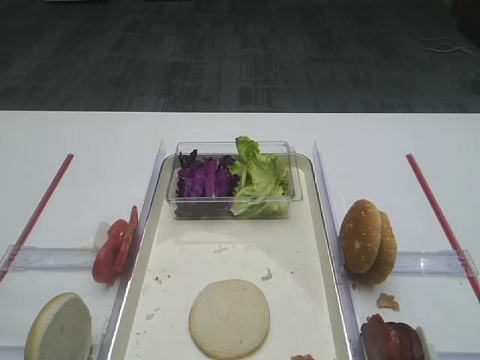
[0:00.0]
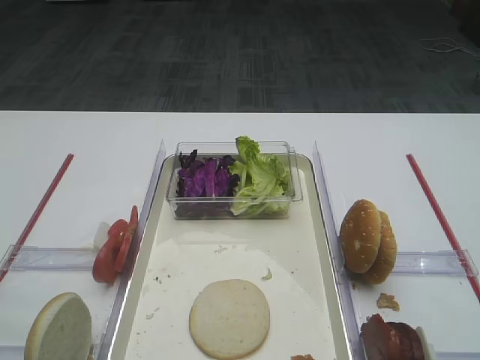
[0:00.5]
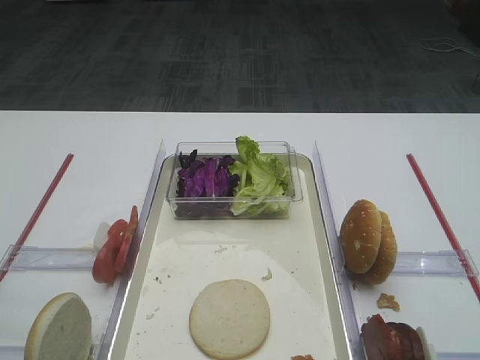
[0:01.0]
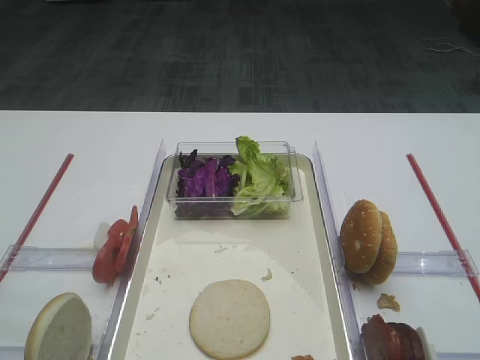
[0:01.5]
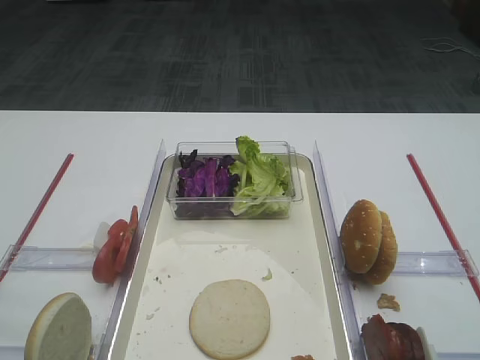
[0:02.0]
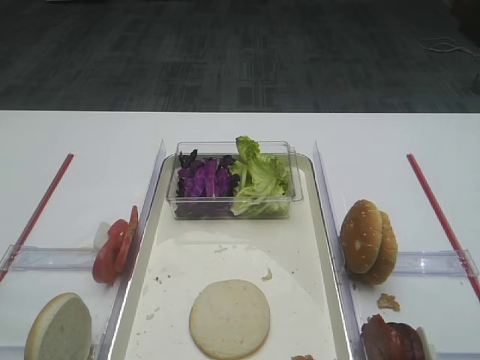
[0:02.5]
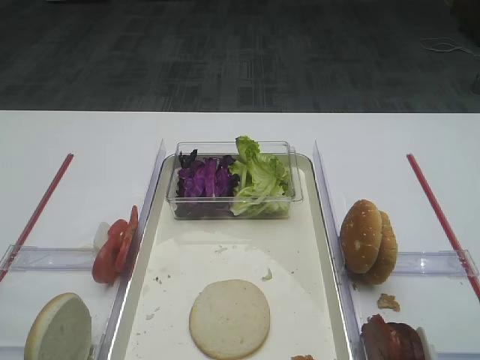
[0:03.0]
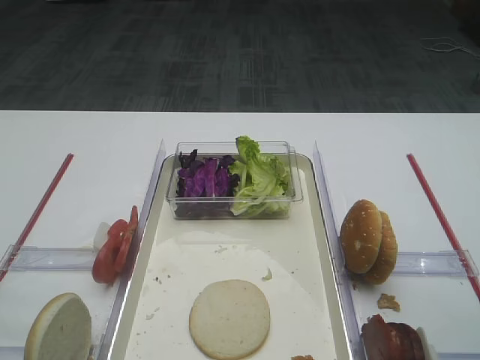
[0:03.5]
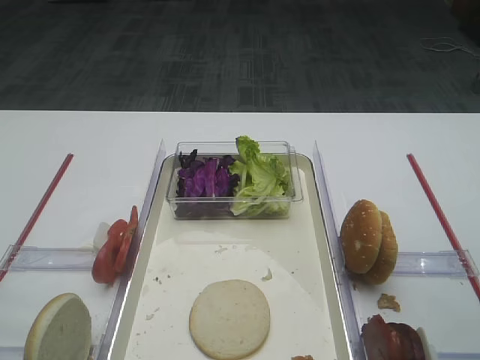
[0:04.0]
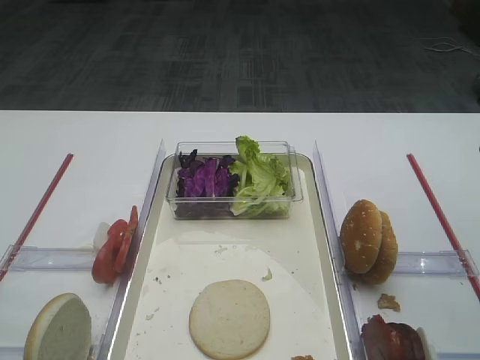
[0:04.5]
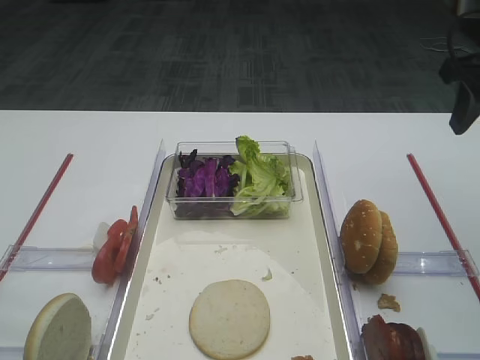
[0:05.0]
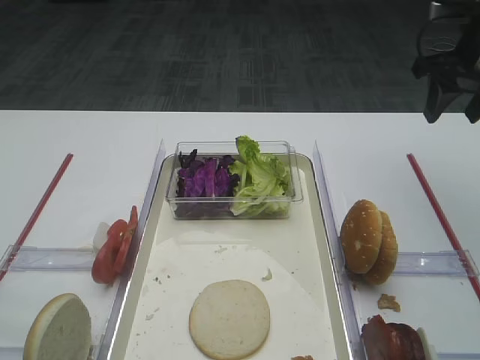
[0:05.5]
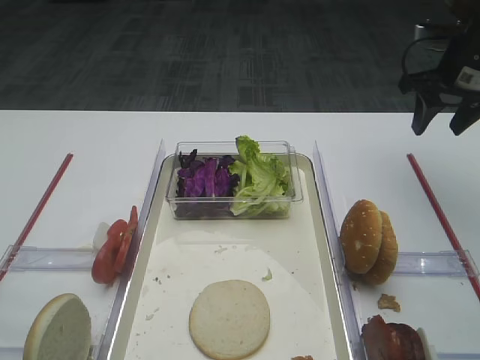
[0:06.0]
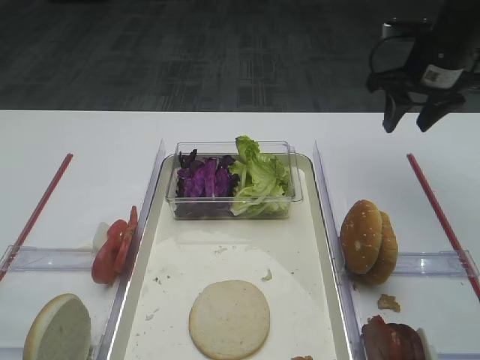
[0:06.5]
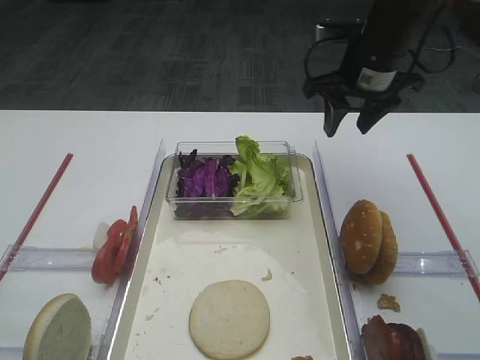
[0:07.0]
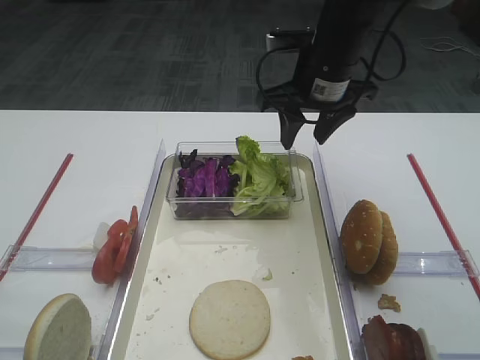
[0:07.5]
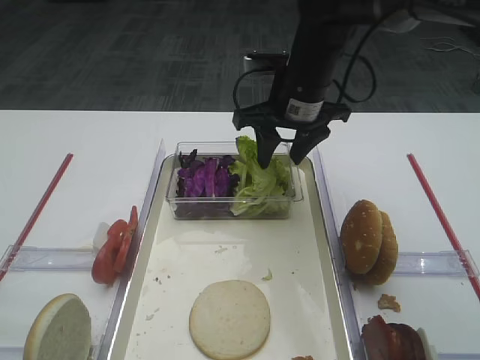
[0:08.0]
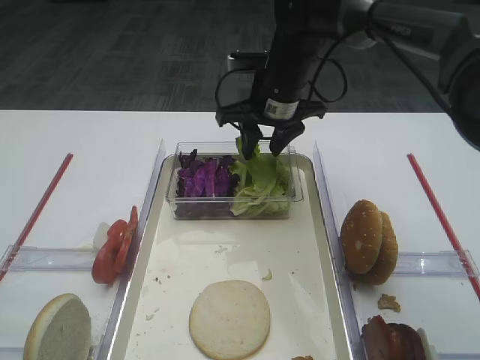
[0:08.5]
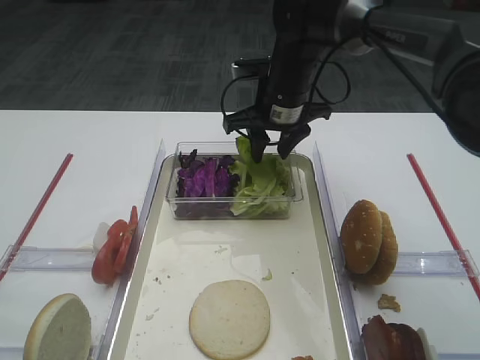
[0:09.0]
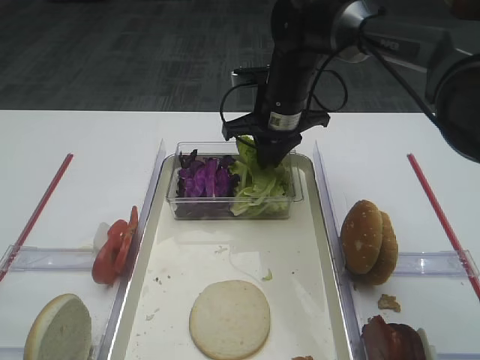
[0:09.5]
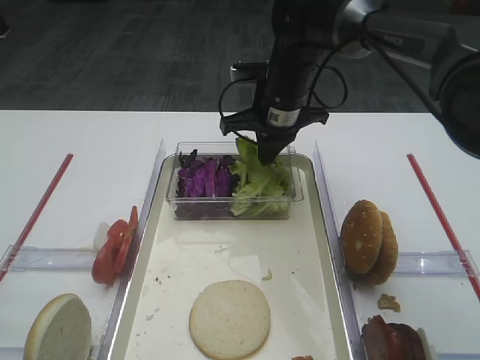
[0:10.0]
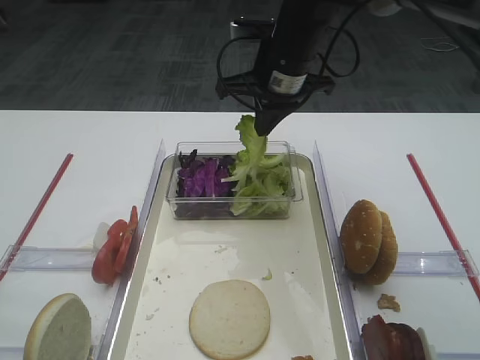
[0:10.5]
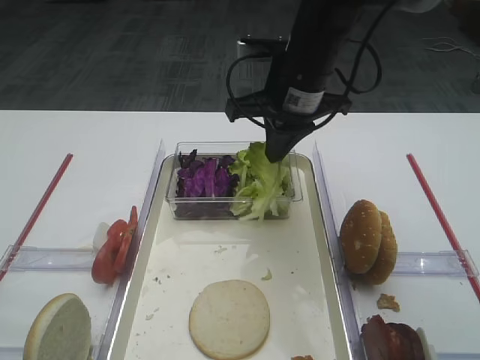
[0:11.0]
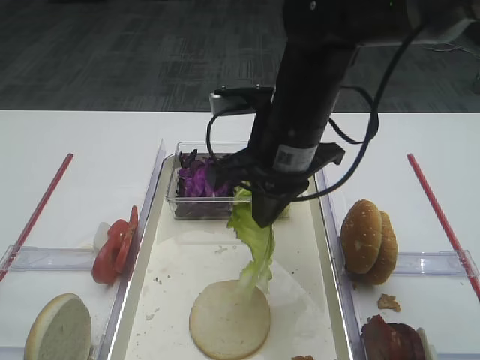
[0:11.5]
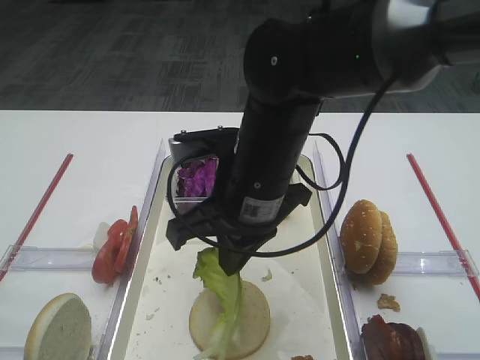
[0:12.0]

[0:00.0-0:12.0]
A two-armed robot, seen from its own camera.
Step, 0:00.0 to 0:10.0: Pick up the lettuce leaf with the right gripper.
0:04.0 to 0:06.0: The right gripper travels forward by some 25 cm.
0:06.0 to 0:08.0: The right gripper shifts approximately 20 cm to the left.
0:08.0 to 0:10.0: The right gripper ends up about 5 cm from where it was, and closes its fingers.
0:10.0 to 0:12.0: The right gripper moves backward, about 20 cm.

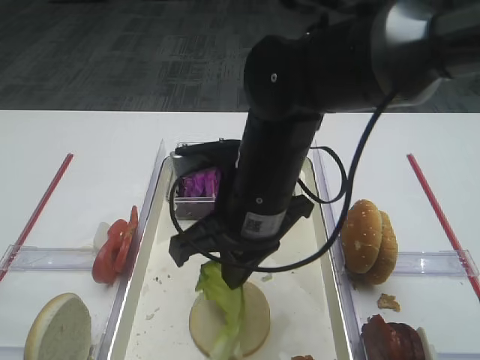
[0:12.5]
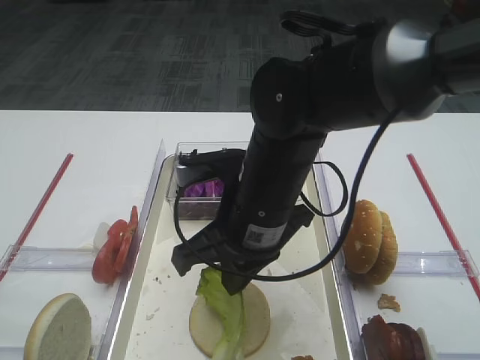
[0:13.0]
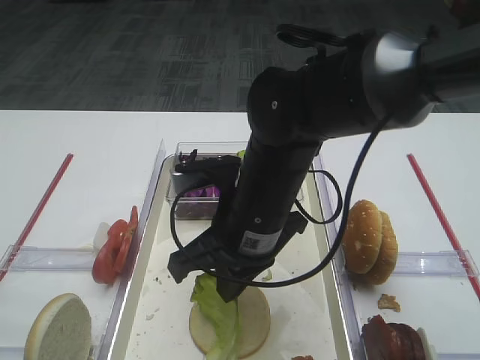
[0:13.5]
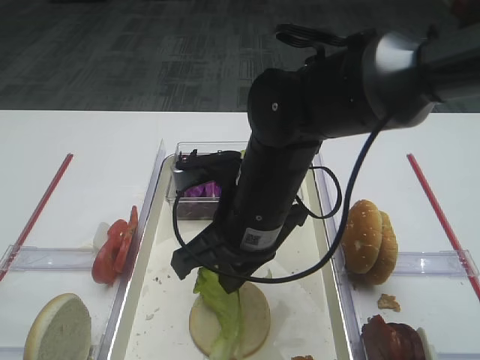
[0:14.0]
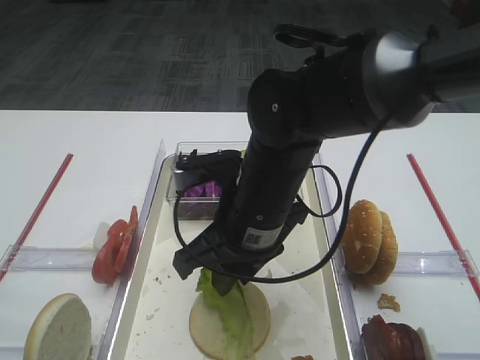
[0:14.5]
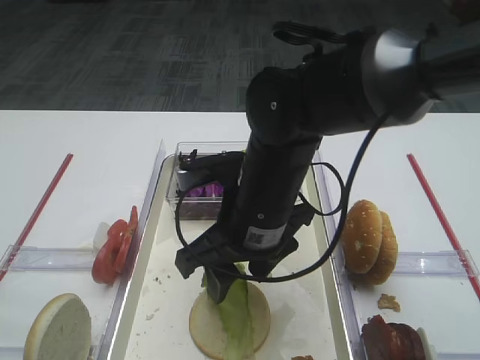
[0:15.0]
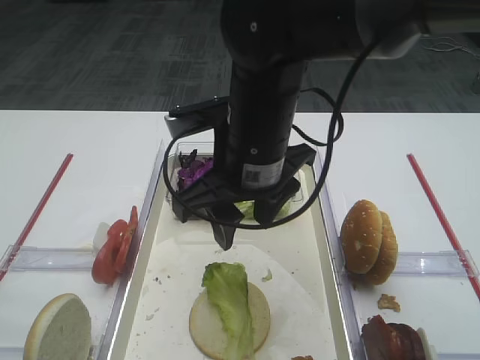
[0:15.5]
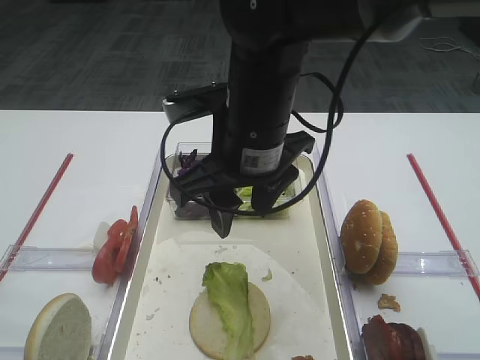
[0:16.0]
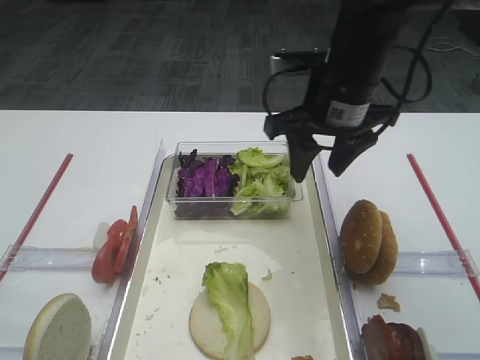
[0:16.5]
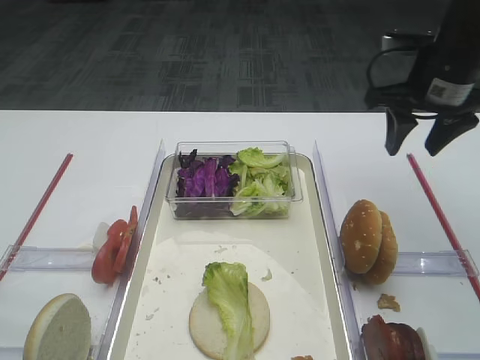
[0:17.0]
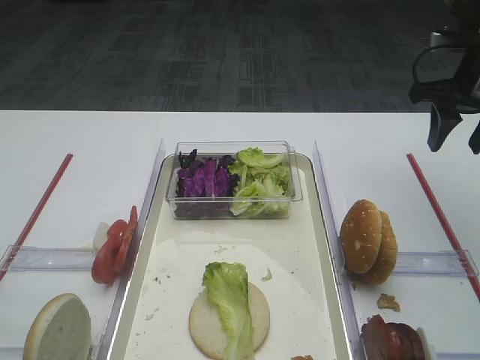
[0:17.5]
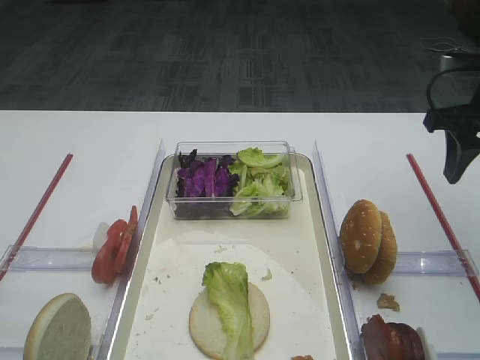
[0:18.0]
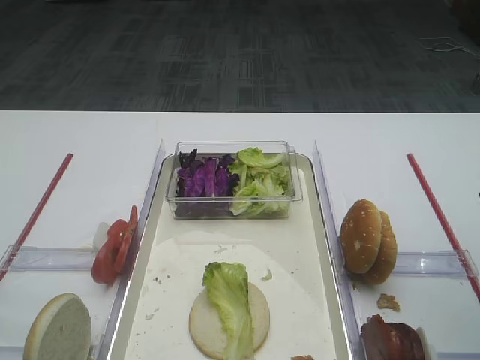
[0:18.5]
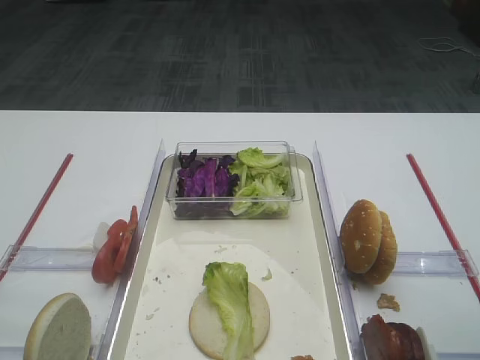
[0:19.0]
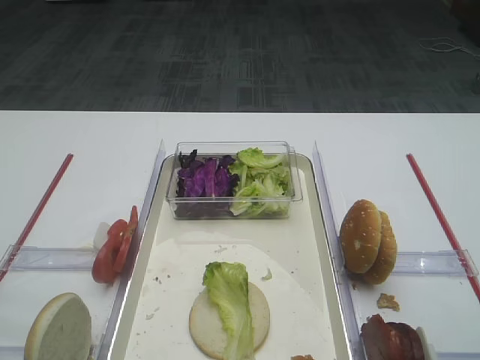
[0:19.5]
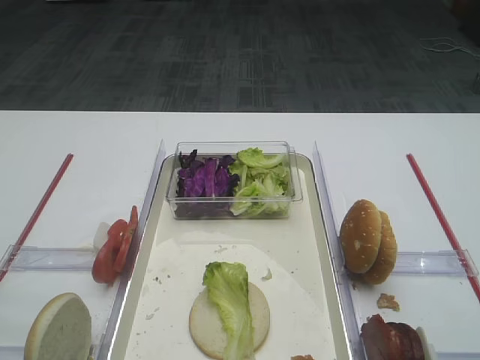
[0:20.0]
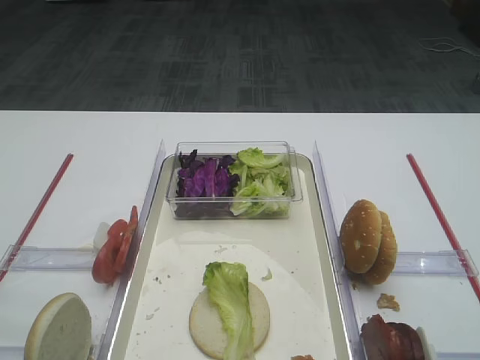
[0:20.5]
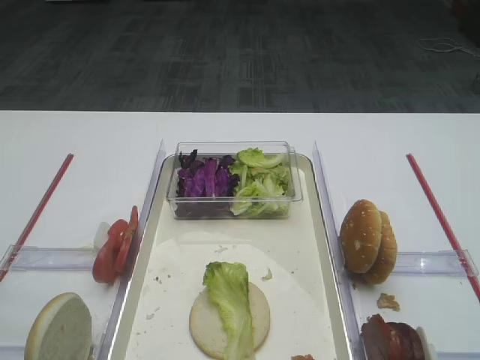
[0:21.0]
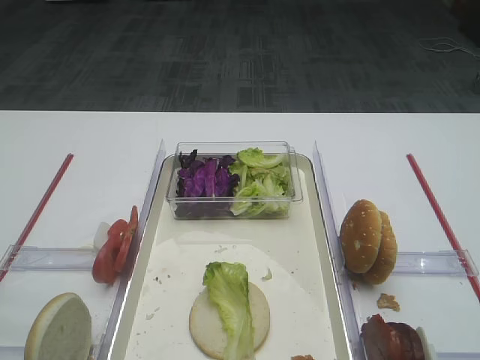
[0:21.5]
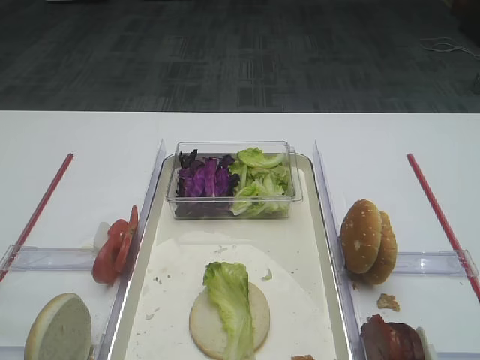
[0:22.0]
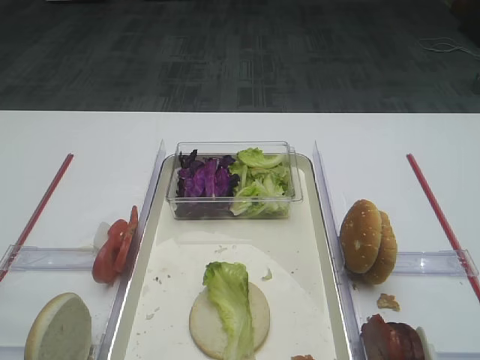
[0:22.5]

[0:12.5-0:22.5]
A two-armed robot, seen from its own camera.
Step, 0:12.5 to 0:15.0: Place the lettuce leaf on the bread slice with the right gripper.
0:12.5 to 0:14.5: The right gripper opens its fingers.
0:14.5 to 0:16.5: The right gripper travels forward, to the right and upward by about 15 cm, and opens up.
0:16.5 to 0:18.5: The right gripper shifts some 20 cm to the right and backward.
0:18.5 to 0:20.5: The right gripper shifts roughly 20 cm backward.

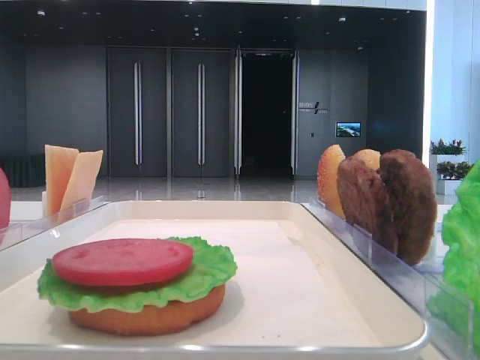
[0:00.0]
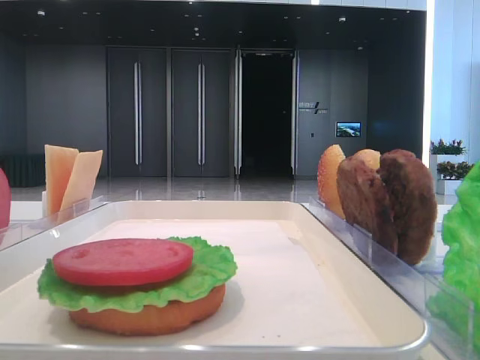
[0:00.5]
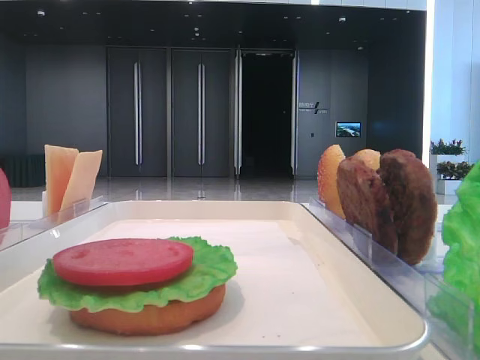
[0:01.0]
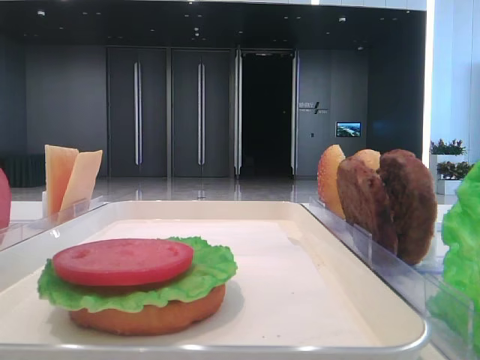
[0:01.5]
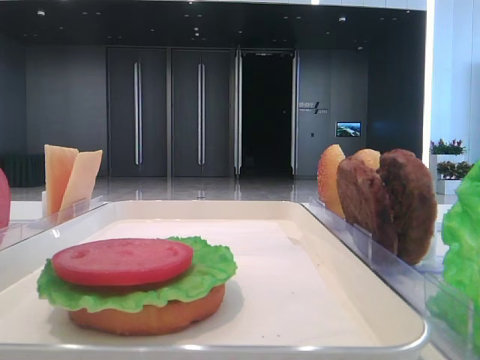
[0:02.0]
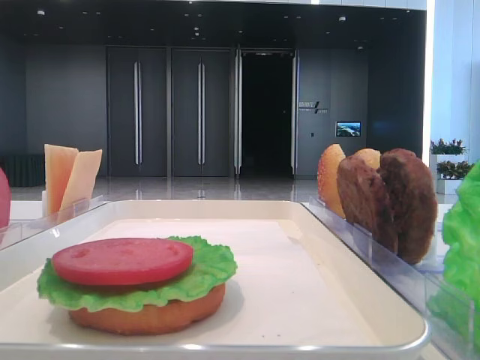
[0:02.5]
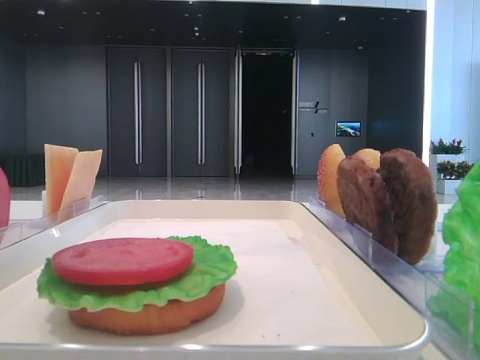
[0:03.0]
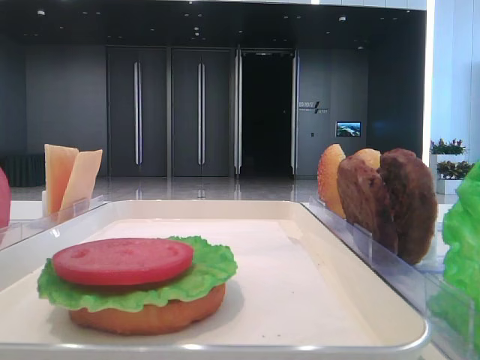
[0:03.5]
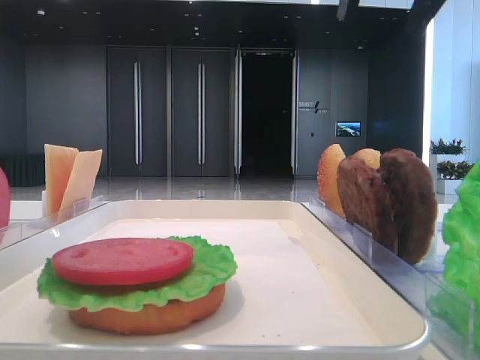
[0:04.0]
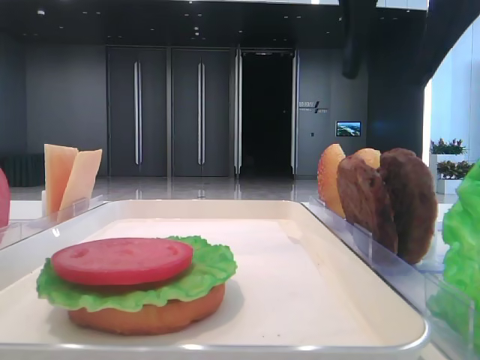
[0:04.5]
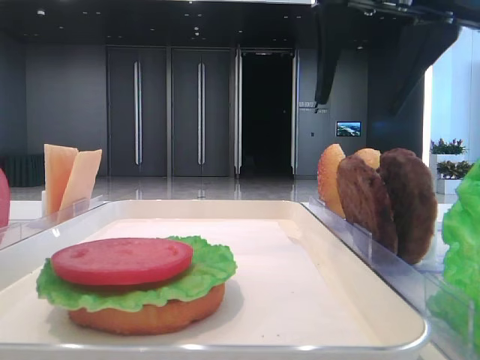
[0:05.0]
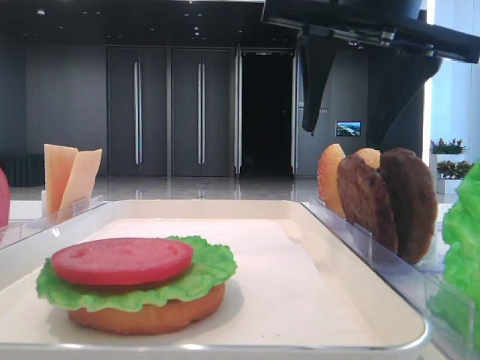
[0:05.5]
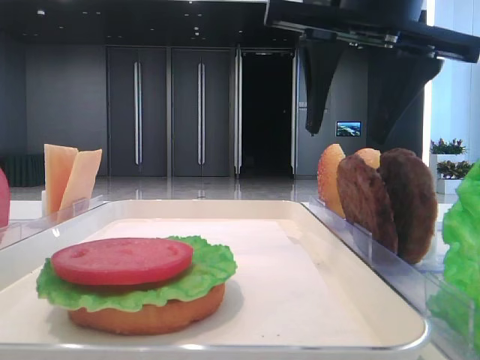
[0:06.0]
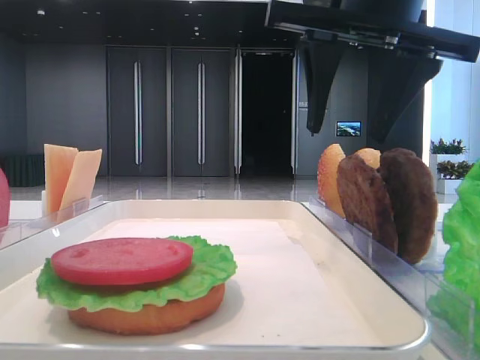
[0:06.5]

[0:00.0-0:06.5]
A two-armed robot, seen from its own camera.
0:02.0 to 0:04.5: The right gripper heads forward and to the left, covering approximately 25 cm, and opens its fingers.
0:04.5 to 0:06.5: There are only small adjustments of the grippers.
